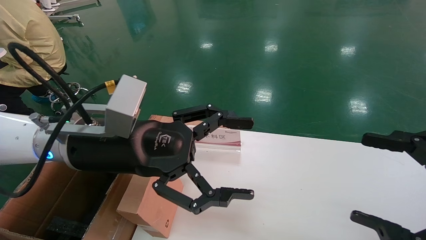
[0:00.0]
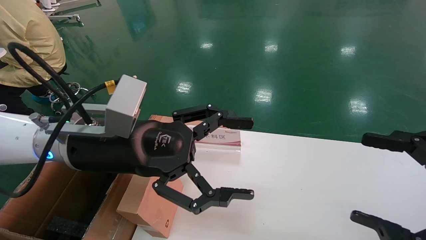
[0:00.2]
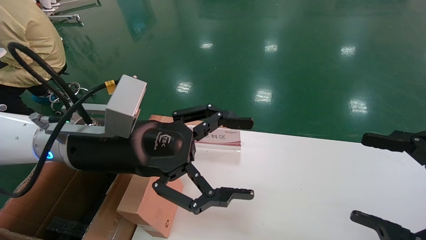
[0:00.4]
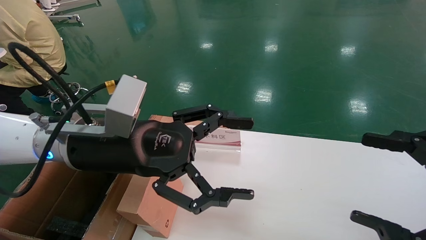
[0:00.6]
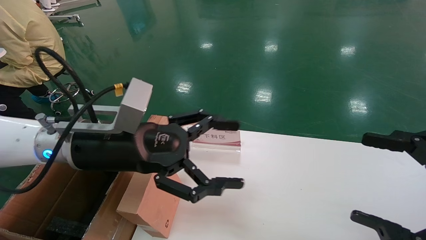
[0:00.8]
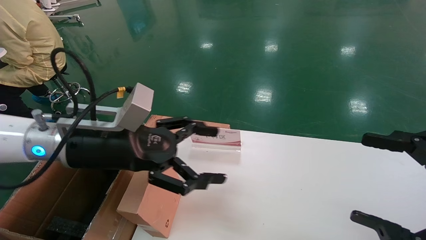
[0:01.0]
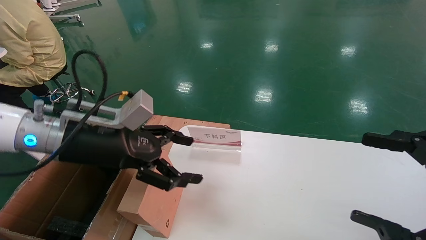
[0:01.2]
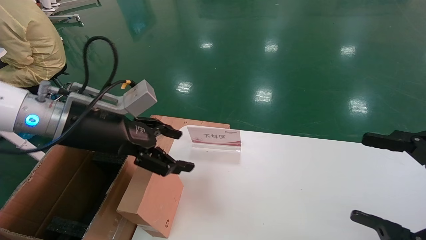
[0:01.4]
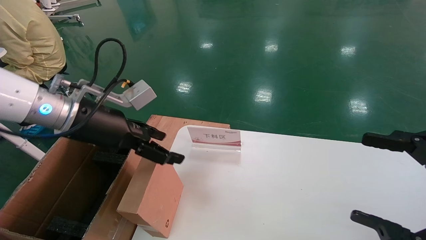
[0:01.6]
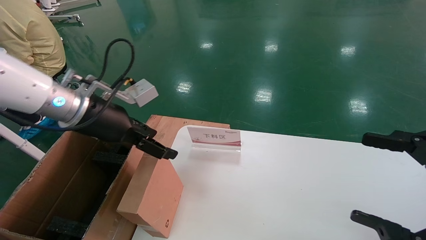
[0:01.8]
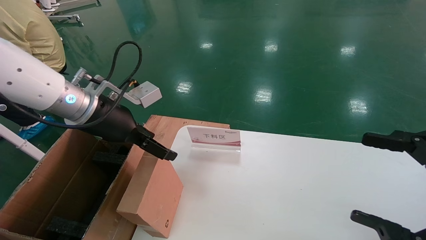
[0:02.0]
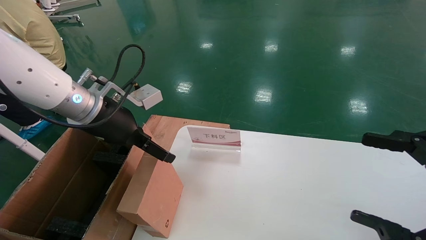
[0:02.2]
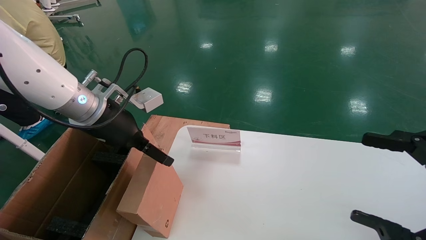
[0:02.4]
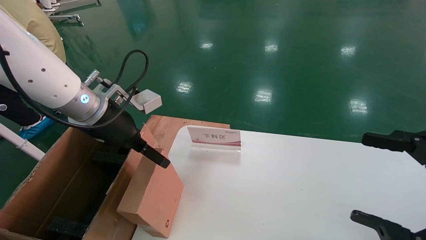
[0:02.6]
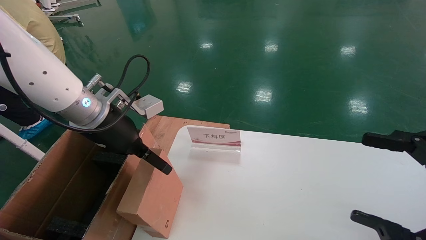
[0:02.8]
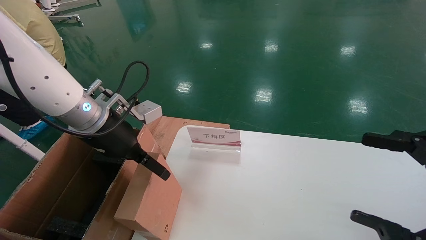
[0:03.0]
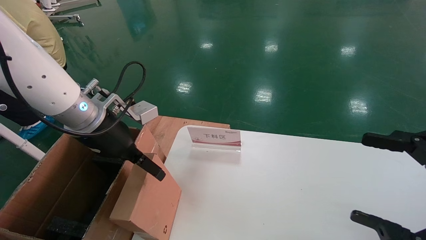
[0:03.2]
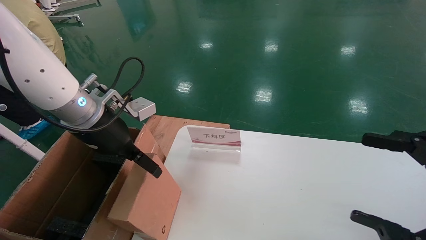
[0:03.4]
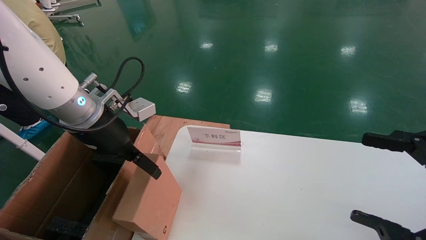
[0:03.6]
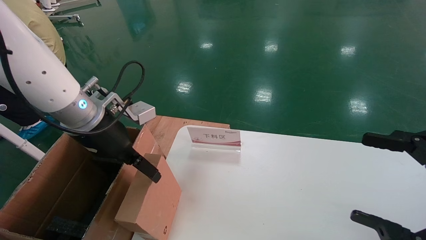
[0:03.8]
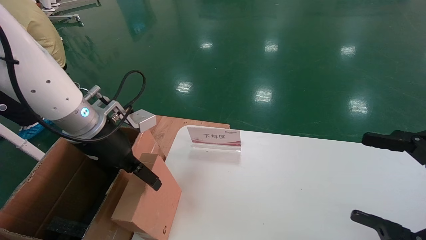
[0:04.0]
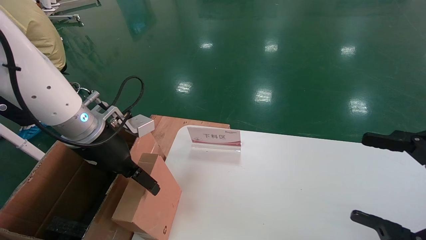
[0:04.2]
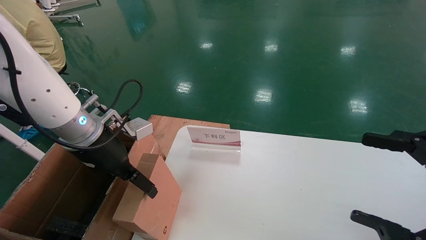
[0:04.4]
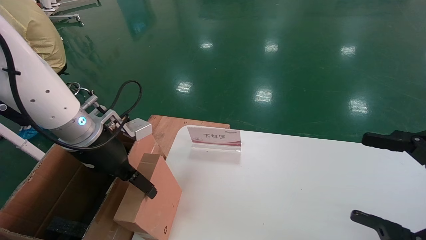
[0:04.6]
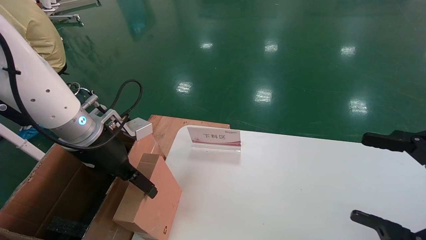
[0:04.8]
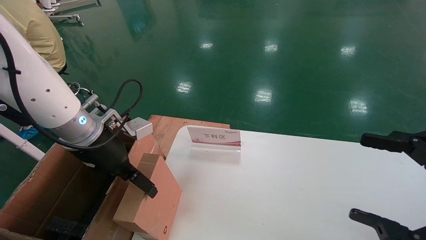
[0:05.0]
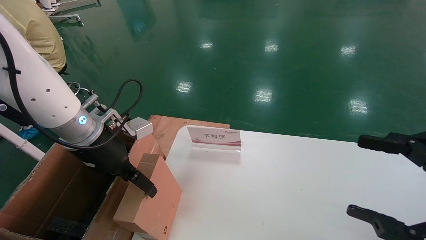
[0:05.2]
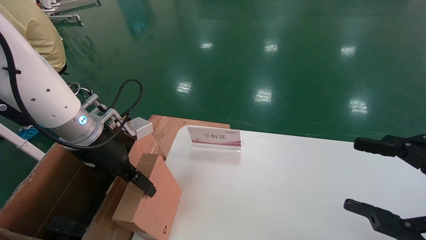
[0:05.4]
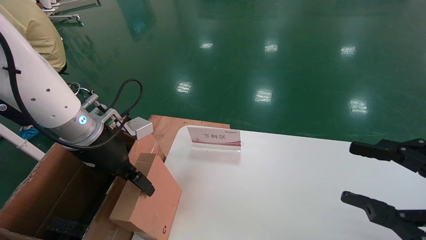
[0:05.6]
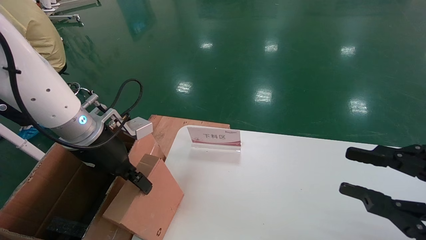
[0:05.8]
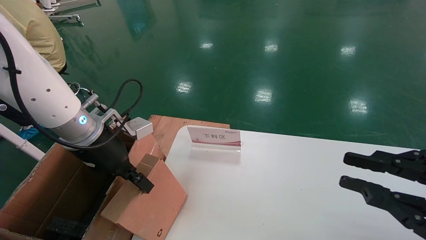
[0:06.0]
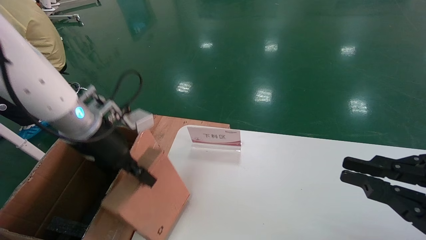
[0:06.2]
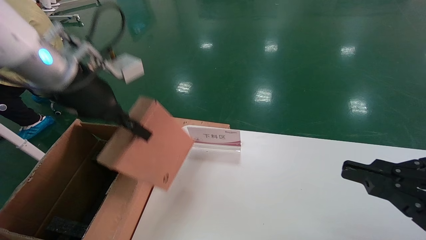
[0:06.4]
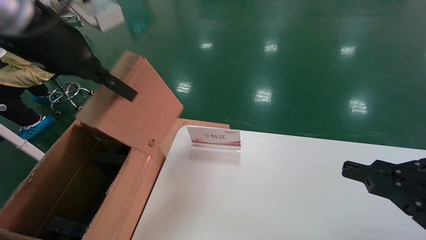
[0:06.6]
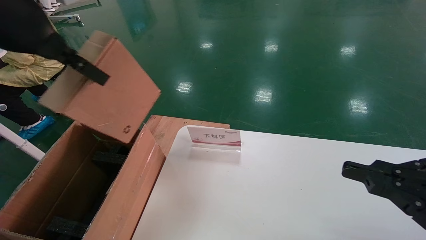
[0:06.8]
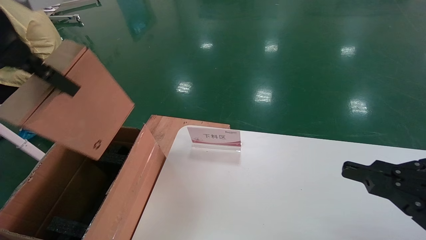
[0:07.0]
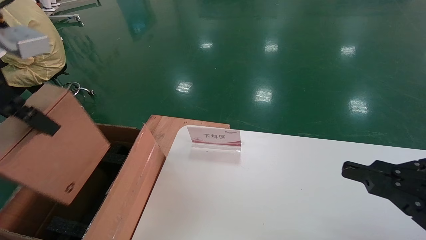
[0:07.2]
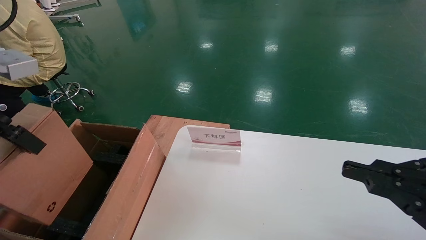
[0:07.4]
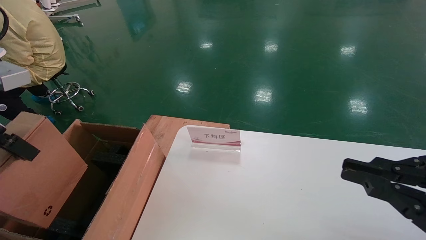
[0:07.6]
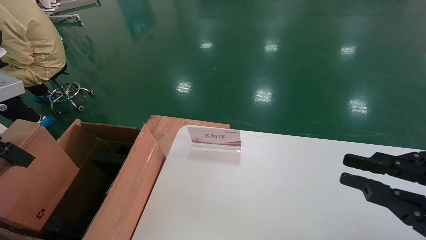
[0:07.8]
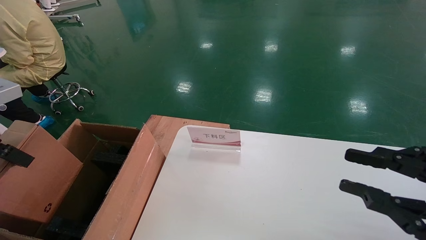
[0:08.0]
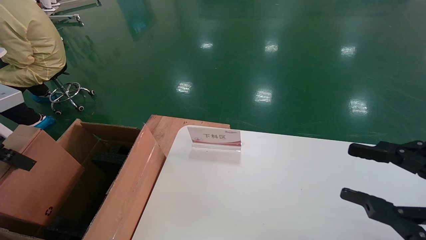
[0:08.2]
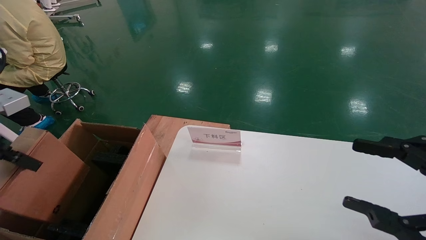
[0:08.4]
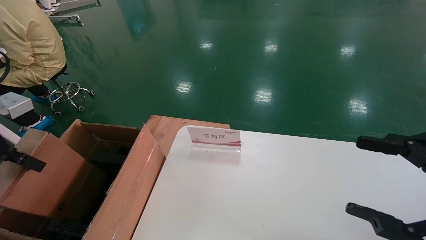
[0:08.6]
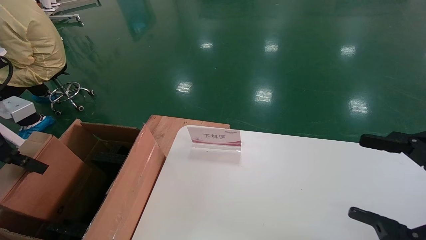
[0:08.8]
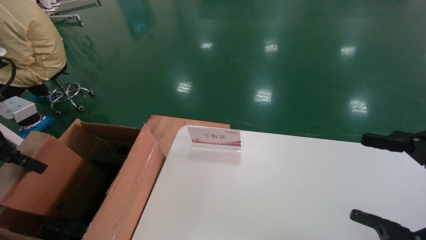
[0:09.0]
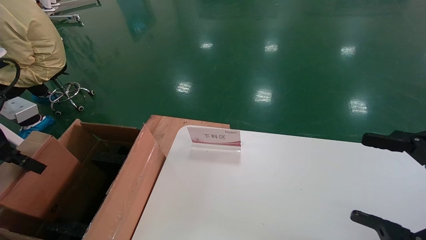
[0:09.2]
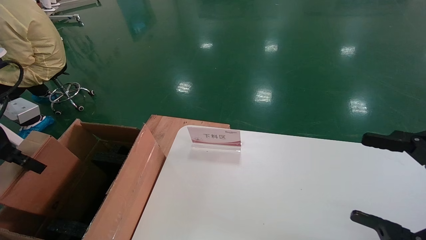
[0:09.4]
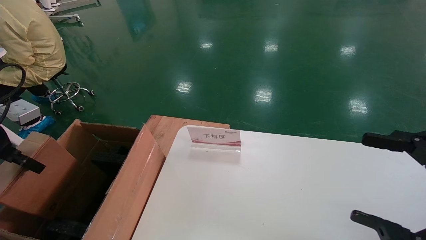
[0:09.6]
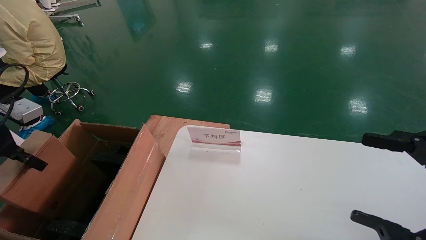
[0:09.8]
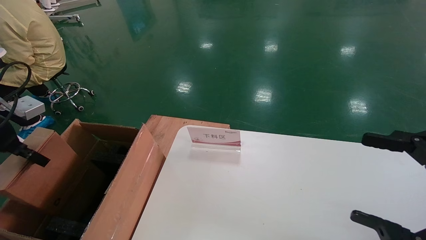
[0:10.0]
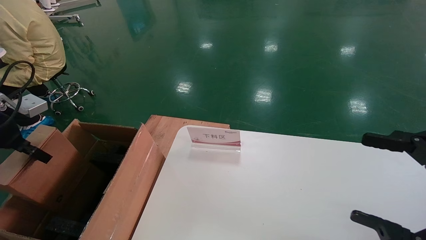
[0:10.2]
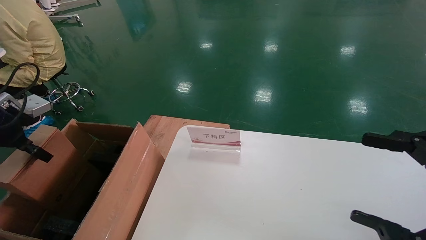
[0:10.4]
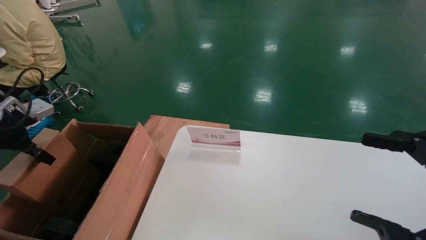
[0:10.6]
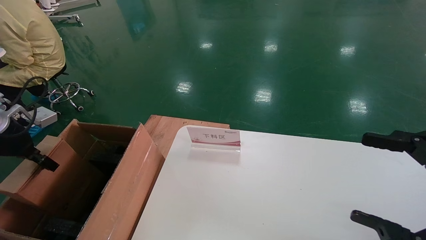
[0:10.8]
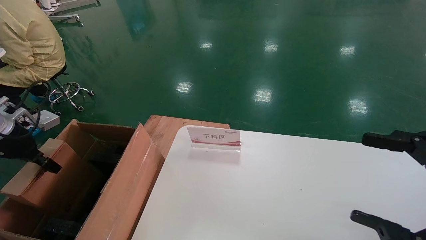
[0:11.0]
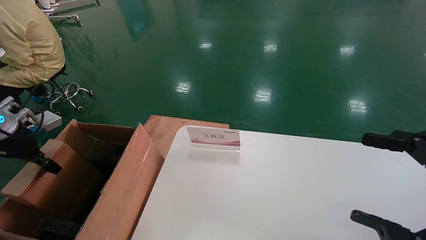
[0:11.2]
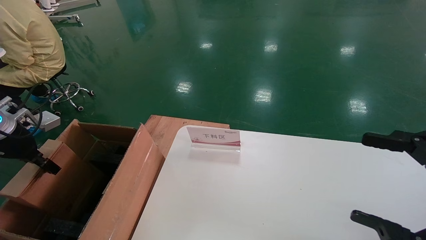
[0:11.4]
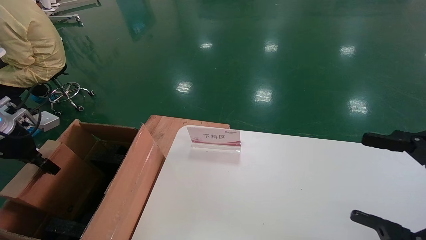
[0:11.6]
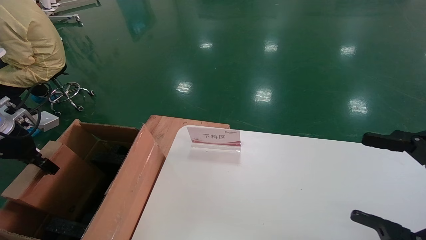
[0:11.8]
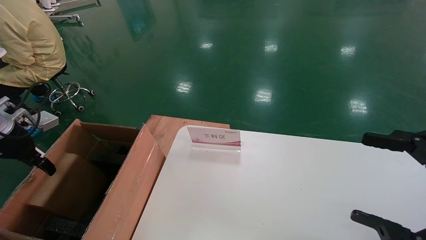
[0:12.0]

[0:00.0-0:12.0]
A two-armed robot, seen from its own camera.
Task of the whole recording: pick up the small cardboard box and load it into the large cardboard box.
Step, 0:01.0 to 0:06.2: Pick up the mouse and power cord box.
0:00.0 to 0:01.6: The left gripper moves to the left, approximately 5 cm.
0:03.0 to 0:04.4: The grippers make only small movements.
0:04.4 to 0:06.0: The right gripper closes. The left gripper closes up.
0:06.0 to 0:07.6: The left gripper is displaced backward, upward and to the left by roughly 20 cm.
0:07.6 to 0:09.0: The right gripper opens its fingers. The left gripper goes some 10 cm downward and to the left.
0:09.0 to 0:10.4: The left gripper moves forward and to the left, approximately 10 cm.
0:10.4 to 0:12.0: The left gripper opens.

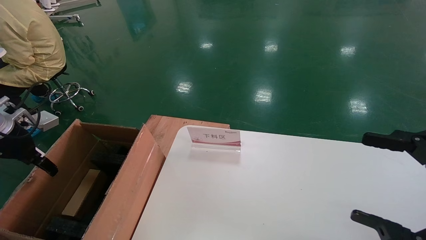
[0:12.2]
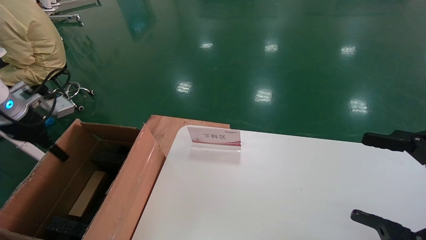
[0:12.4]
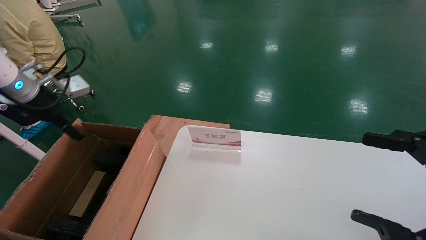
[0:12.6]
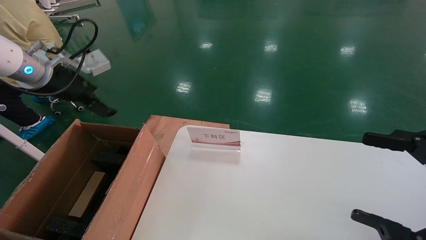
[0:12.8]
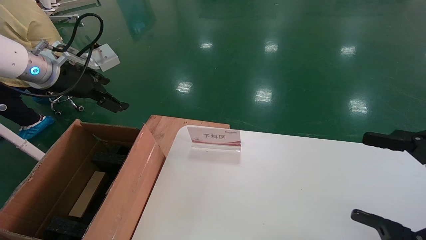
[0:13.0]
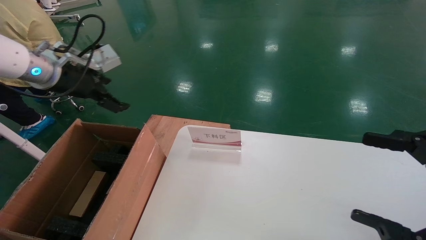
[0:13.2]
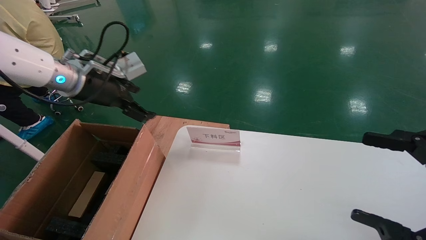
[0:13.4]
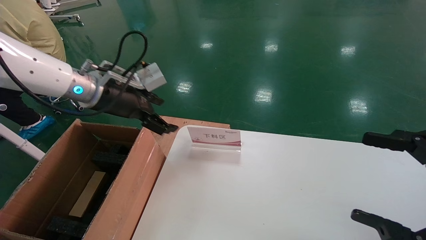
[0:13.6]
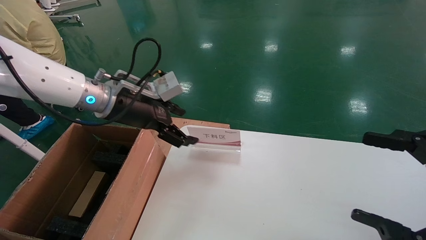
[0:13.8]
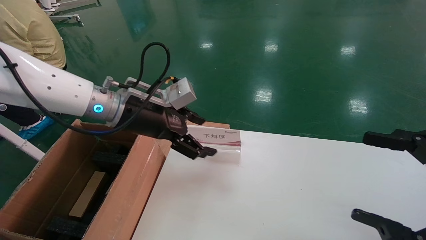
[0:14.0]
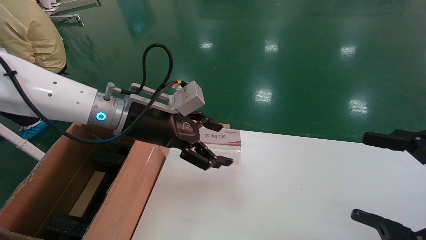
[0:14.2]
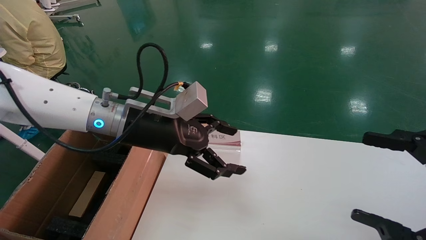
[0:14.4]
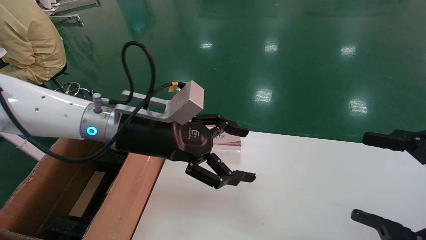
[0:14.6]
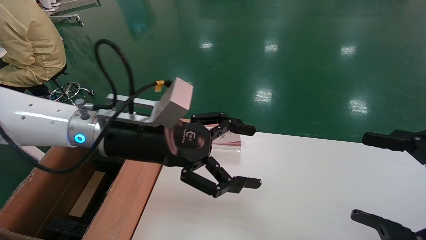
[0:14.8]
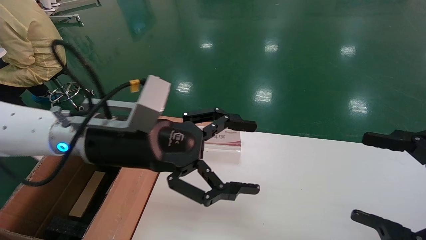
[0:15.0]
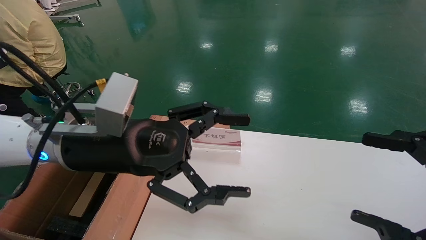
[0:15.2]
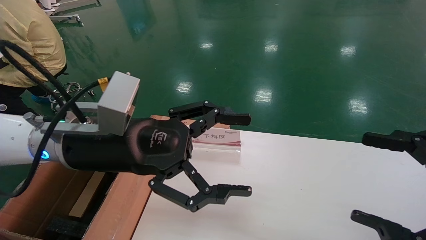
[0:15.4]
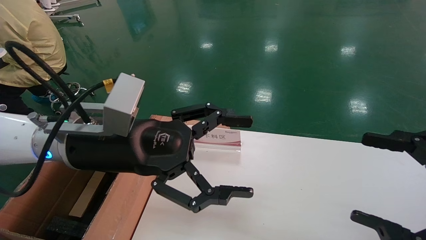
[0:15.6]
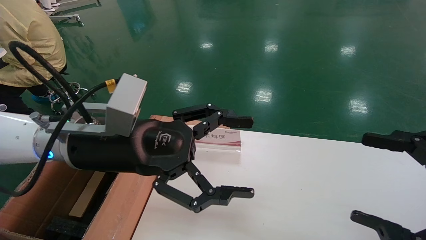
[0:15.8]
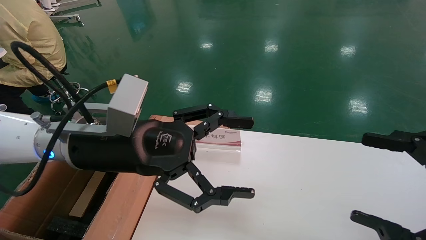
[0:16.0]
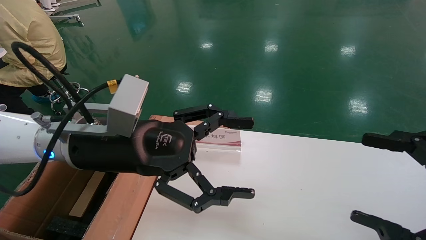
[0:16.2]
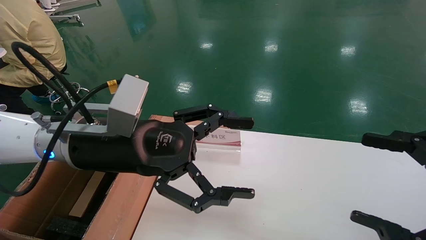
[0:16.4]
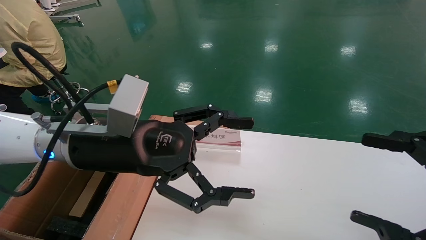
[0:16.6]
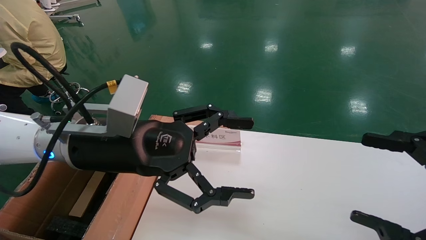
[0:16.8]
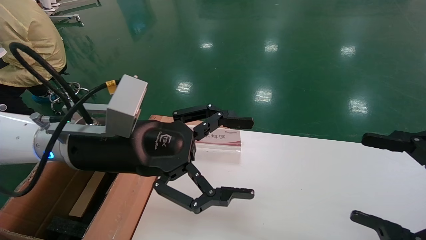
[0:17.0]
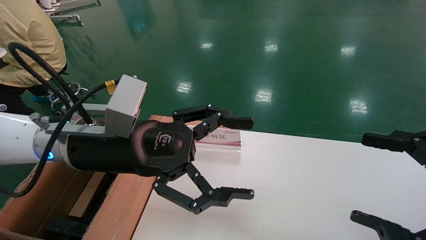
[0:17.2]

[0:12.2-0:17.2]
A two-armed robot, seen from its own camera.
Task of the whole recording: pick up the small cardboard box and load it into the large cardboard box.
0:12.2 to 0:13.8: The left gripper travels to the right by some 25 cm, and opens.
0:13.8 to 0:15.6: The left gripper goes approximately 15 cm backward and to the right.
0:15.6 to 0:17.2: Neither gripper changes place.
